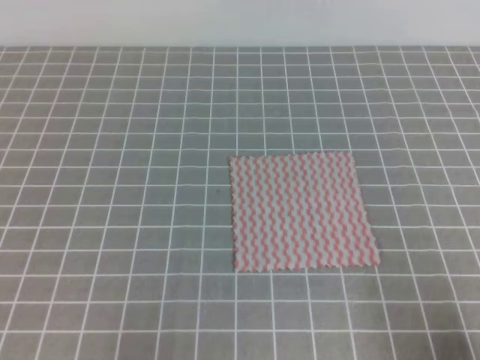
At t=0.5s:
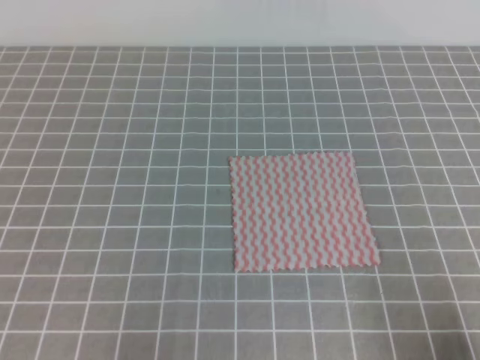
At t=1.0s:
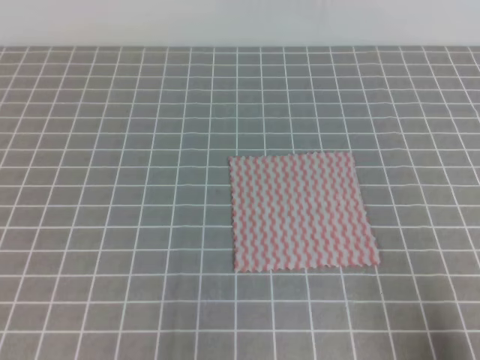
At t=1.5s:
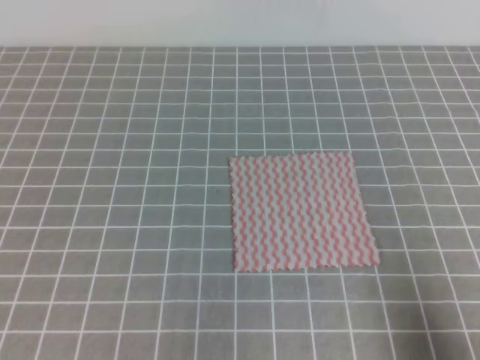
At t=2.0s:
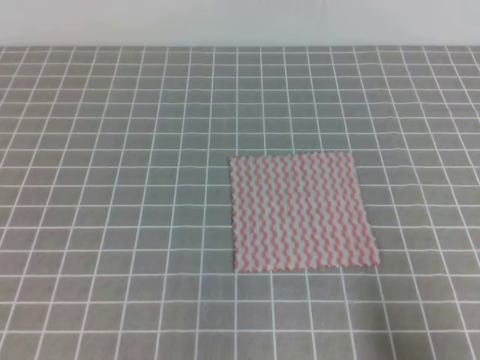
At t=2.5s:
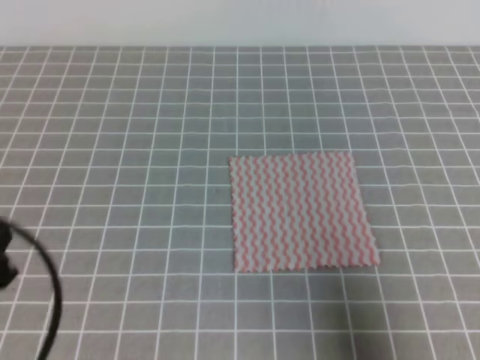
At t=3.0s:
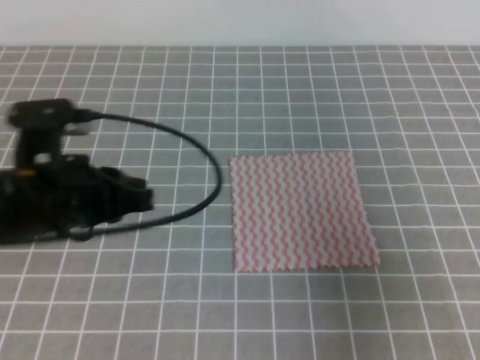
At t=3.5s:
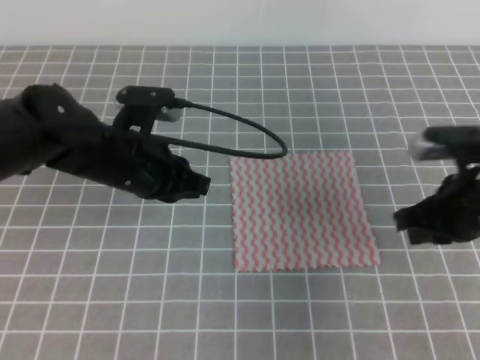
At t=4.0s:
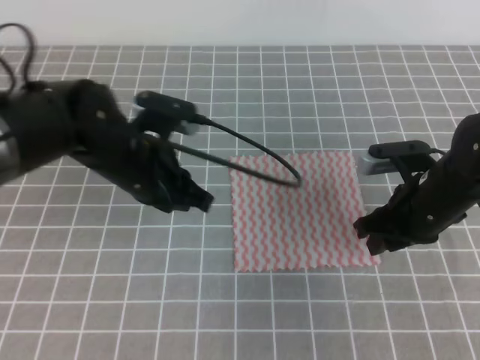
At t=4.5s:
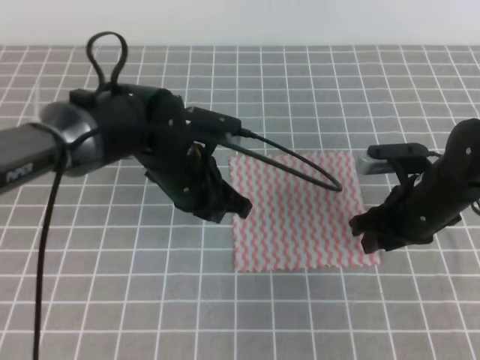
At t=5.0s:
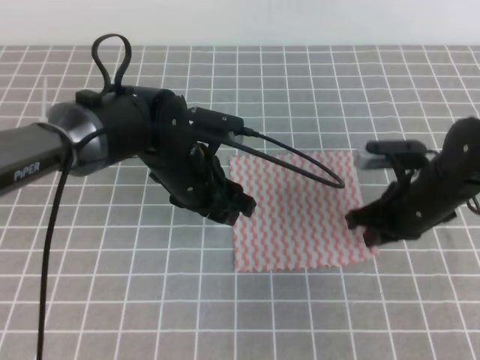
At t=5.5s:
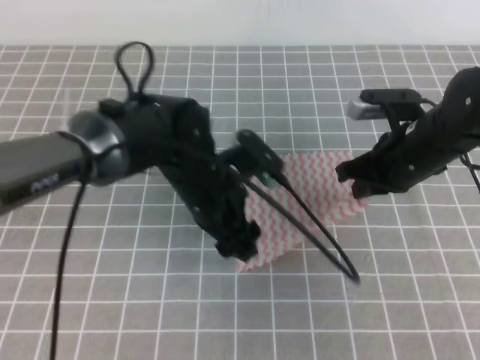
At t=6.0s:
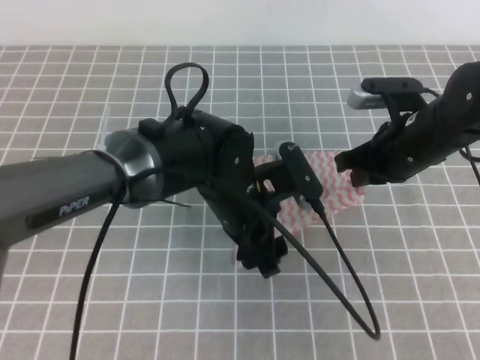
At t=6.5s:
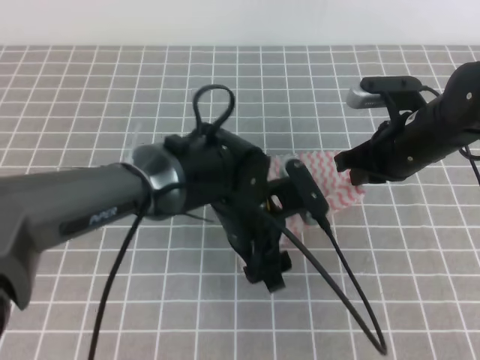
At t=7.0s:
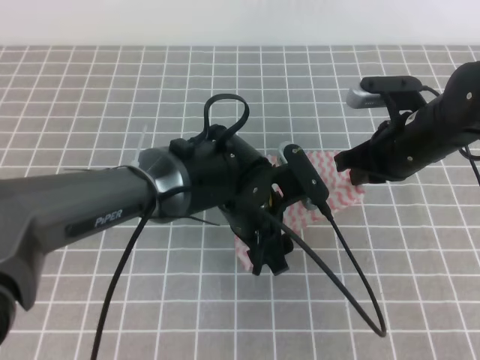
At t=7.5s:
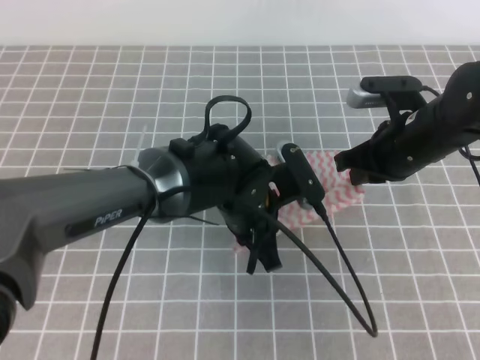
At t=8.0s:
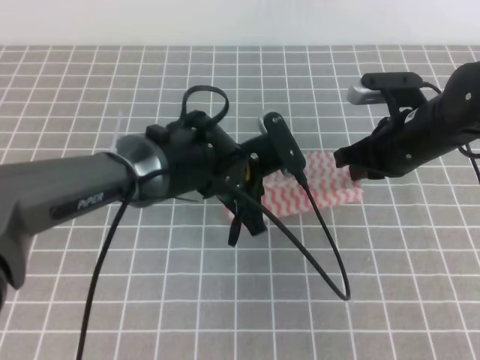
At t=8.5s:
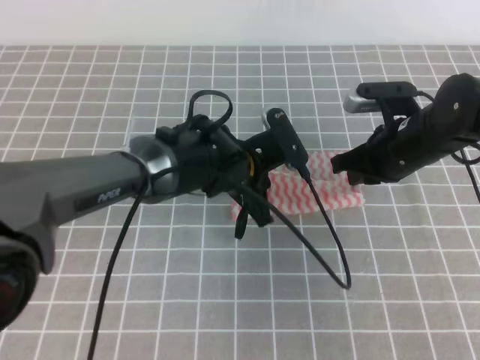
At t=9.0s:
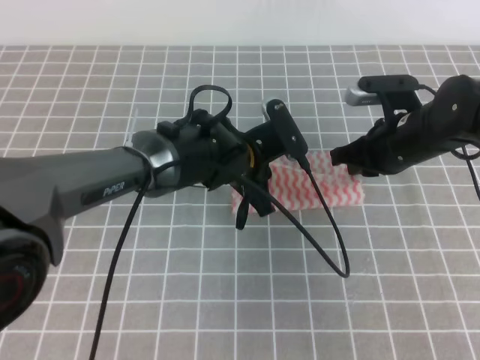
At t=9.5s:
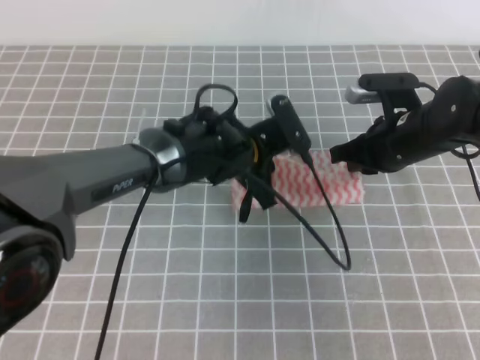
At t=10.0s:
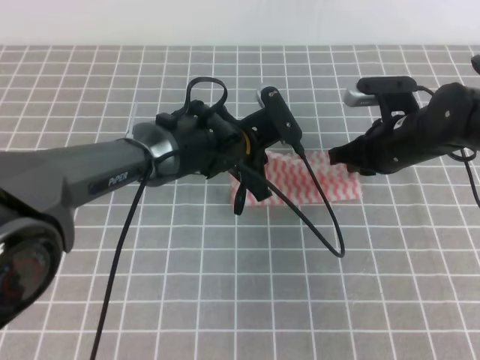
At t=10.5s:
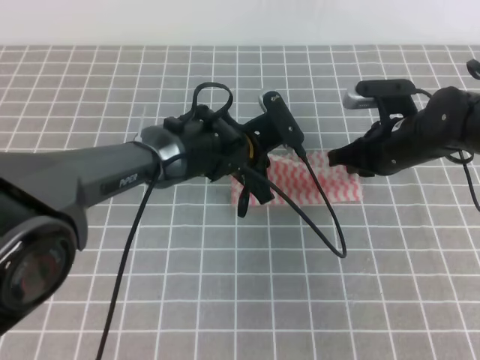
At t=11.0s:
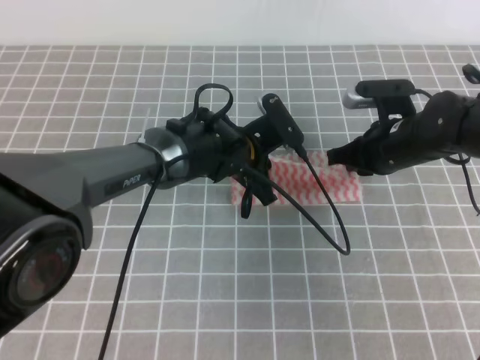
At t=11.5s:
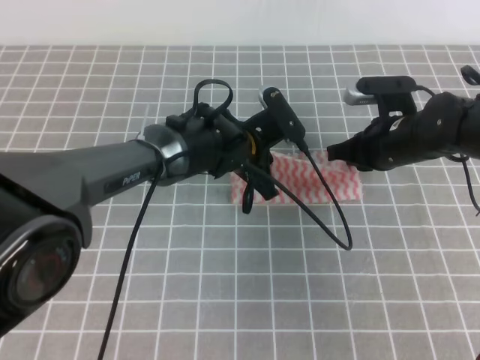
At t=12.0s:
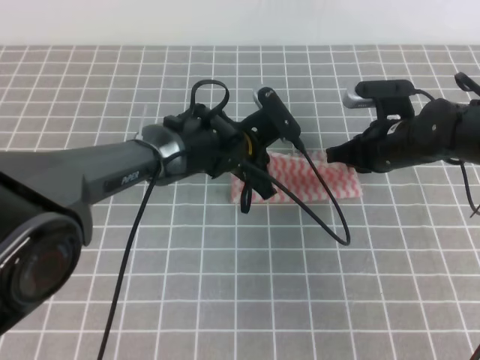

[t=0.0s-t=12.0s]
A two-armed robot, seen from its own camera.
t=2.0s to t=4.0s: The right gripper heads forward, covering about 25 cm, and opens. Meanwhile the left gripper is displaced forward and to the right by some 30 cm.
t=4.0s to t=6.0s: The right gripper moves some 5 cm, and closes. Meanwhile the left gripper moves to the right, about 10 cm, and opens.
t=6.0s to t=8.0s: The left gripper closes up.
t=8.0s to t=10.0s: The left gripper shifts approximately 5 cm forward.
t=10.0s to t=12.0s: There are only small adjustments of the grippers.

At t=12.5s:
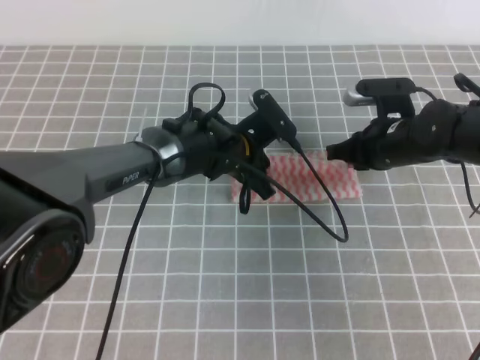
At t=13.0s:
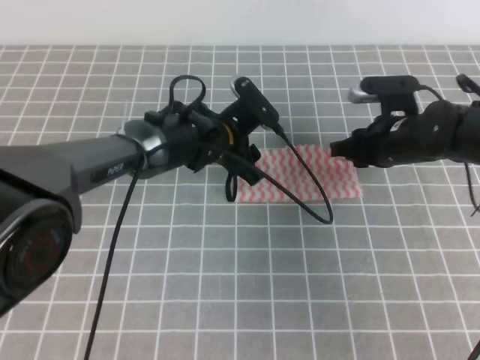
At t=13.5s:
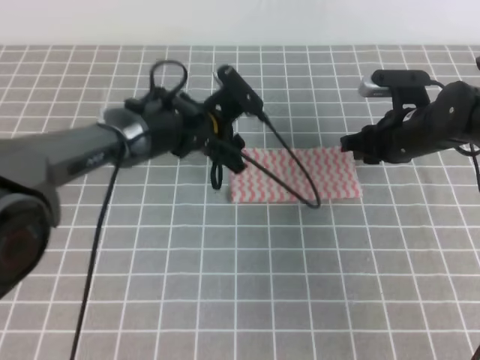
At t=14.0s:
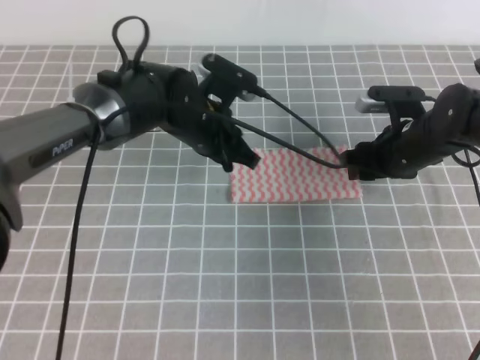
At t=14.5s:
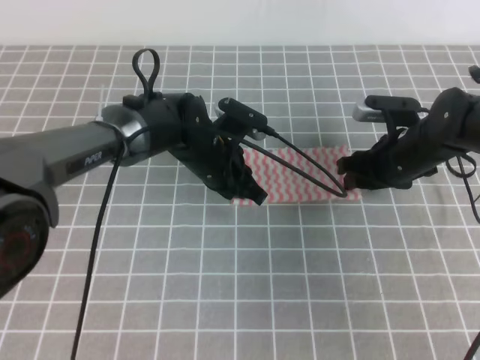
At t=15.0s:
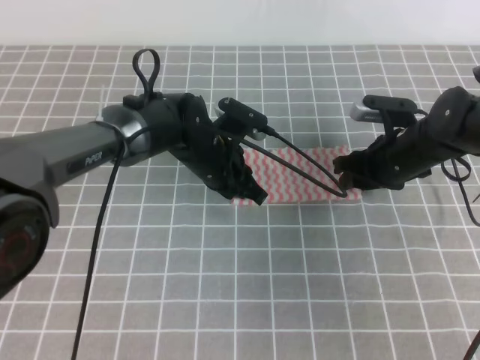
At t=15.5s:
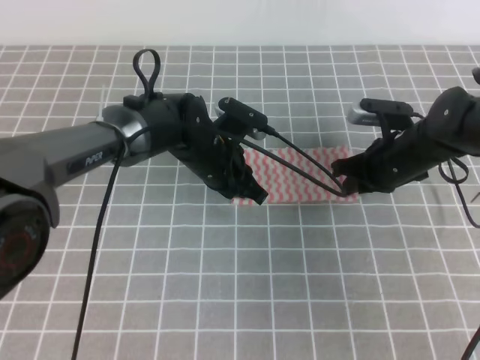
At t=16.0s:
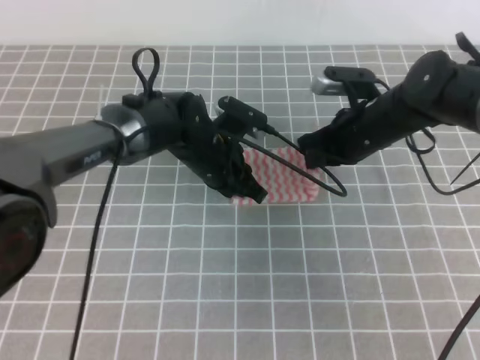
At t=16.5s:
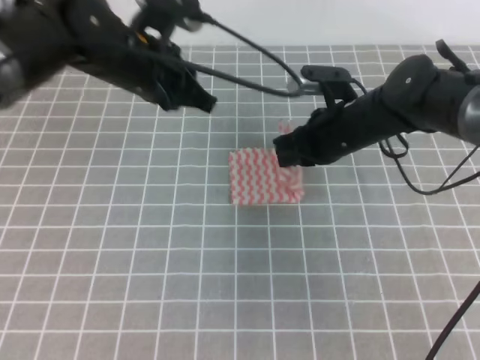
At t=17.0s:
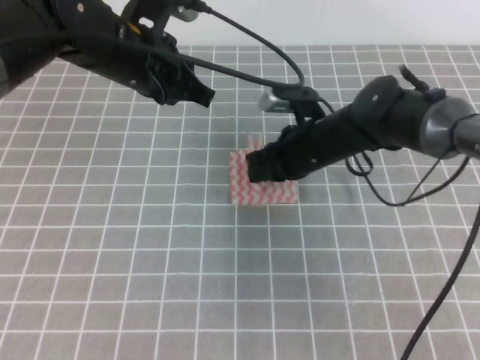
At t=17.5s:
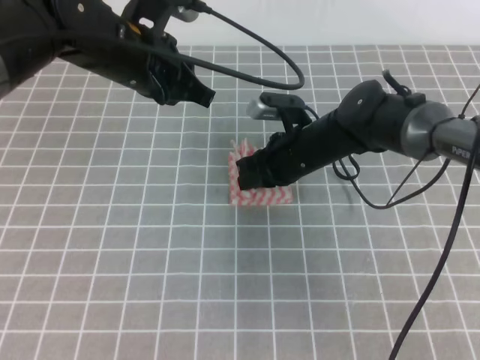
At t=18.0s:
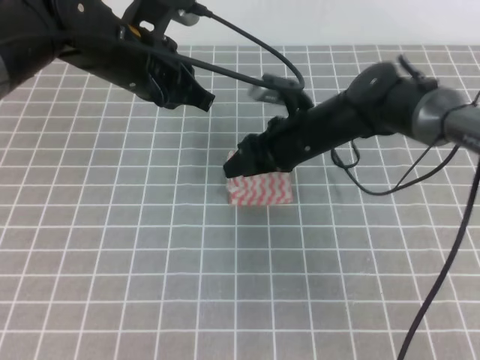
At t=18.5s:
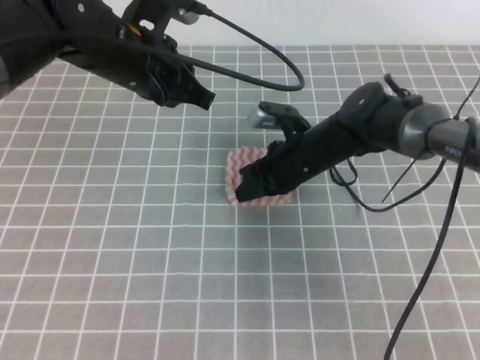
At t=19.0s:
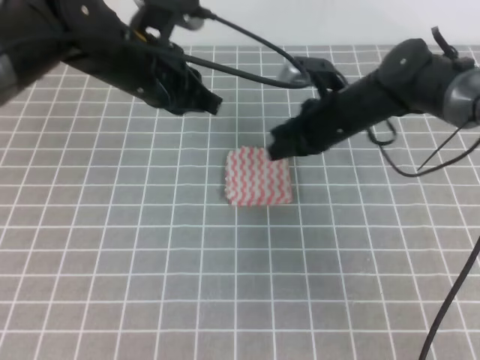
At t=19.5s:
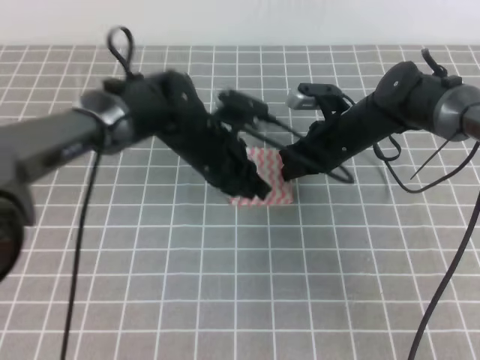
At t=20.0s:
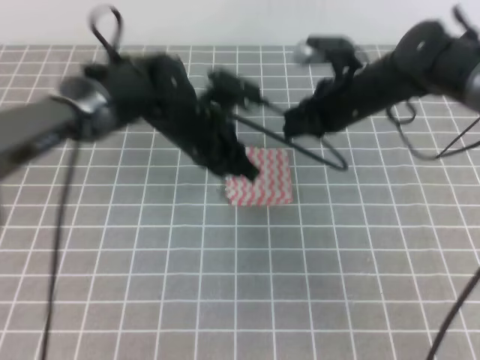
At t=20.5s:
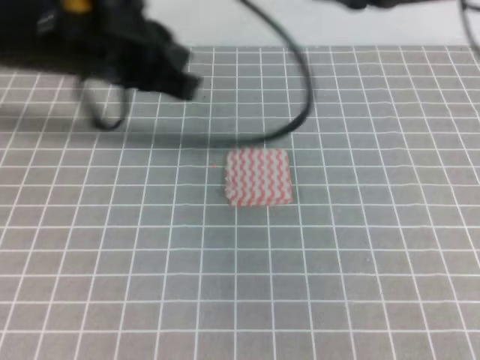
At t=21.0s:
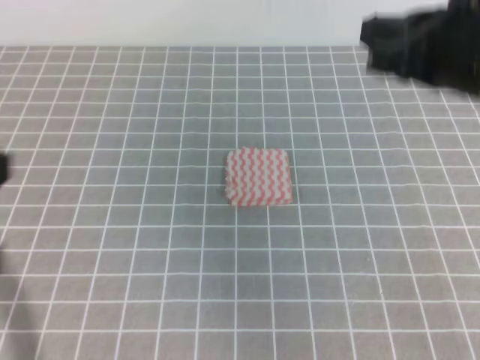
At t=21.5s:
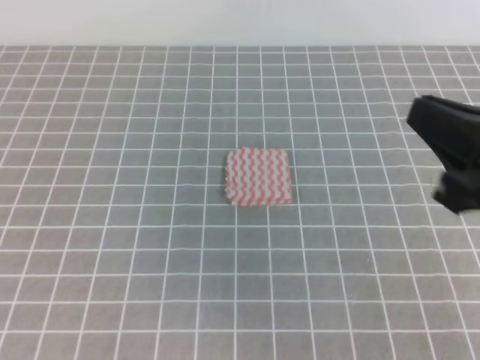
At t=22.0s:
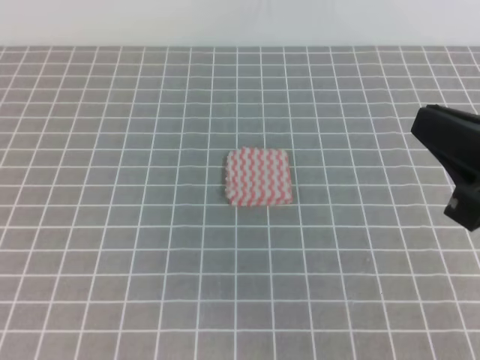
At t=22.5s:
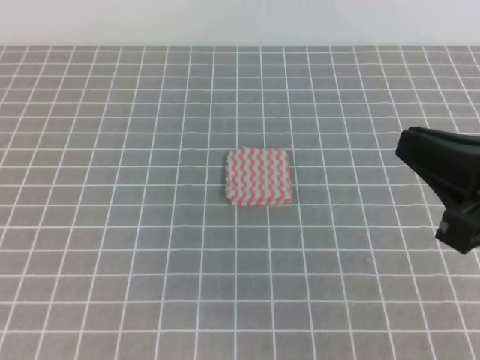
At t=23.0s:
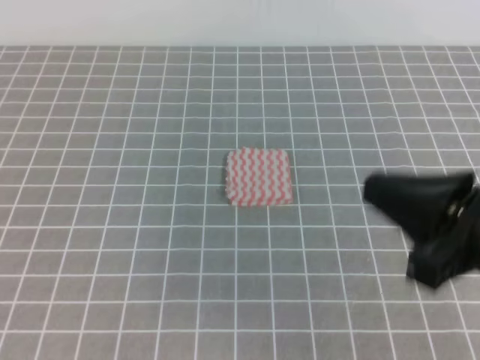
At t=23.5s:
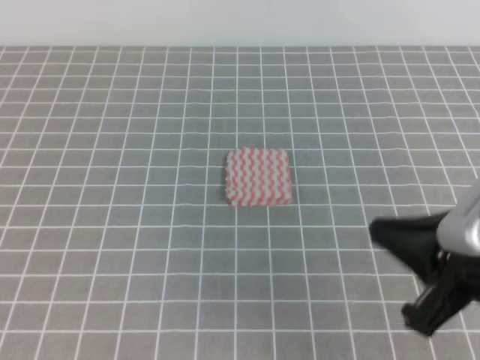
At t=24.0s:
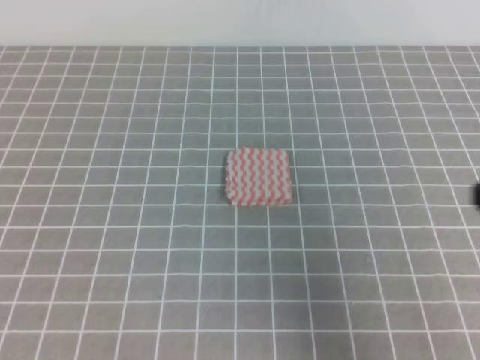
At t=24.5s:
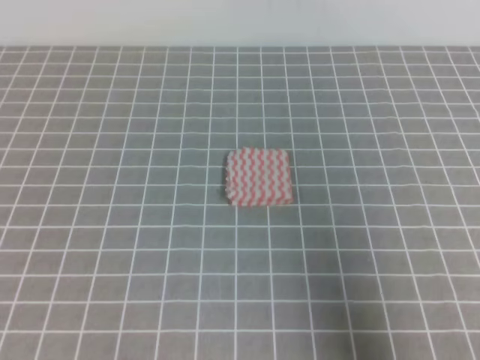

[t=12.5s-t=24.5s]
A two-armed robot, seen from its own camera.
t=12.5s to t=14.5s: The right gripper opens its fingers, while the left gripper closes its fingers.
t=14.5s to t=16.5s: The right gripper goes some 10 cm to the left, and closes its fingers. Meanwhile the left gripper shifts some 15 cm upward and to the left.
t=16.5s to t=18.5s: The right gripper changes place by roughly 5 cm, and opens, then closes once more.
t=18.5s to t=20.5s: The right gripper heads upward, covering some 20 cm. The left gripper goes approximately 15 cm backward and upward.
t=20.5s to t=22.5s: The right gripper heads backward, covering some 25 cm, while the left gripper travels backward and to the left by some 25 cm.
t=22.5s to t=24.5s: The right gripper travels to the right and backward by approximately 10 cm.

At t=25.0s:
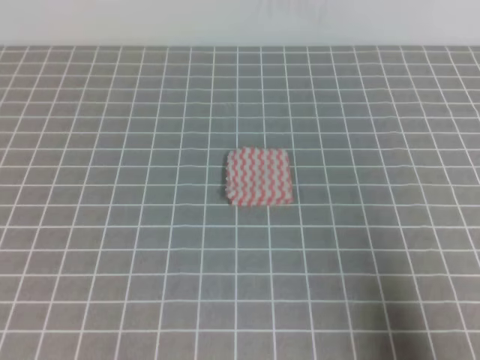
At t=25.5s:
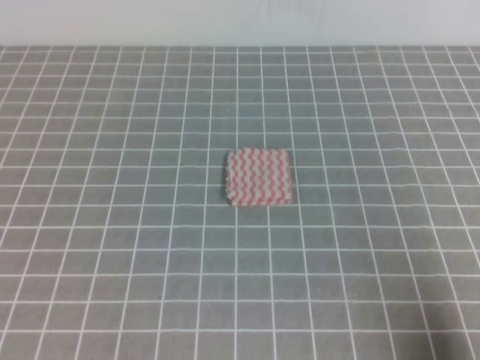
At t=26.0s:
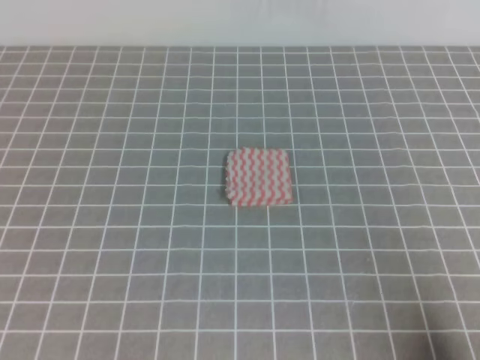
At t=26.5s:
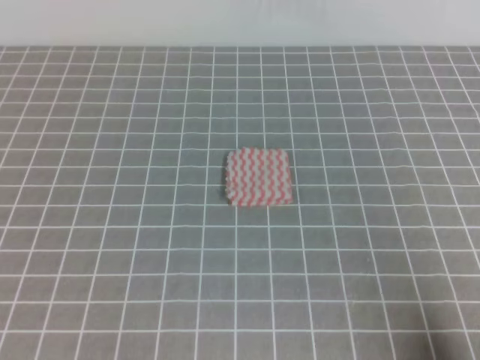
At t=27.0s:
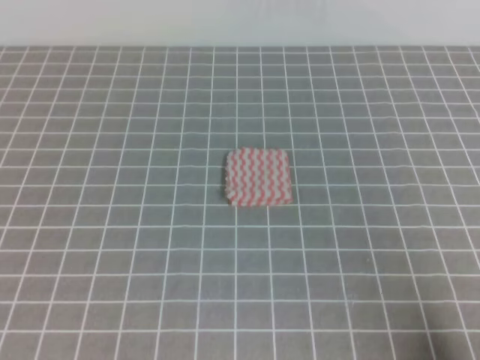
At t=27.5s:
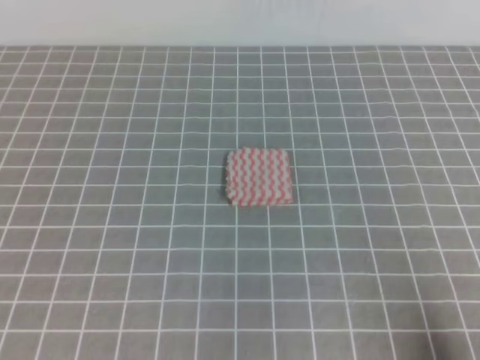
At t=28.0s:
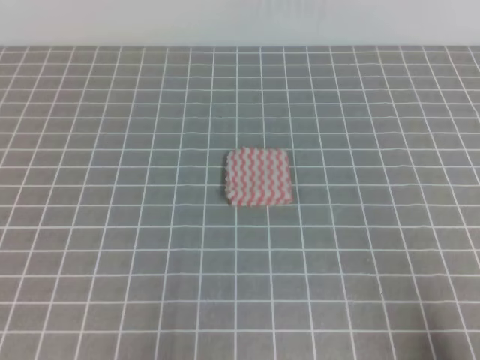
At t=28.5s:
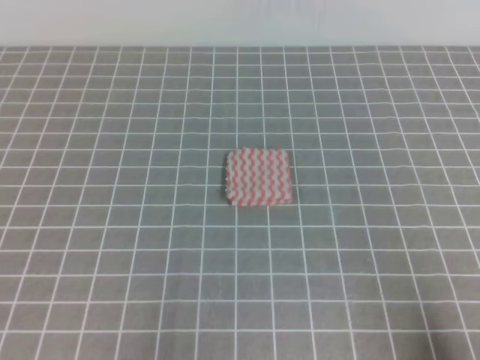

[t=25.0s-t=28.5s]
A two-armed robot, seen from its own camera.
Step, t=25.0s to t=28.5s: Fold the towel.
t=25.0s to t=27.0s: The right gripper moves downward, approximately 5 cm.
